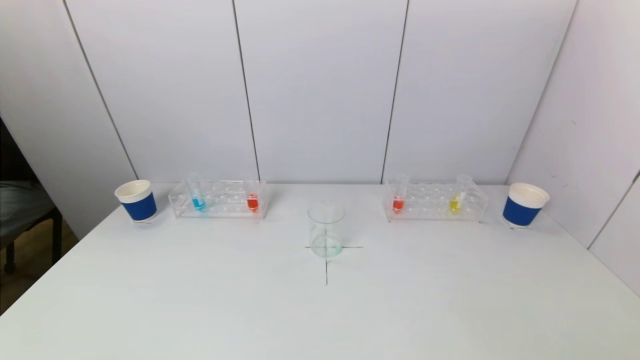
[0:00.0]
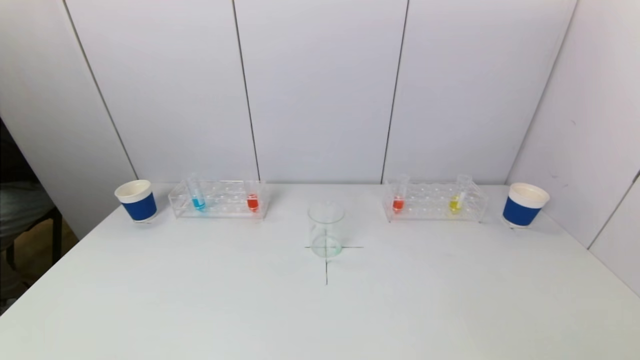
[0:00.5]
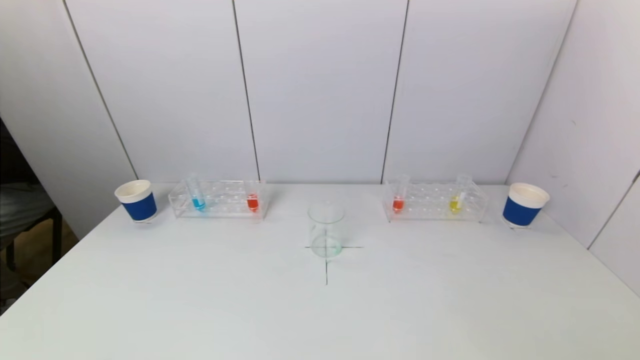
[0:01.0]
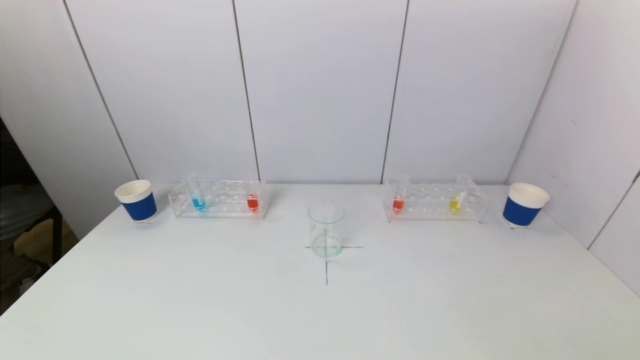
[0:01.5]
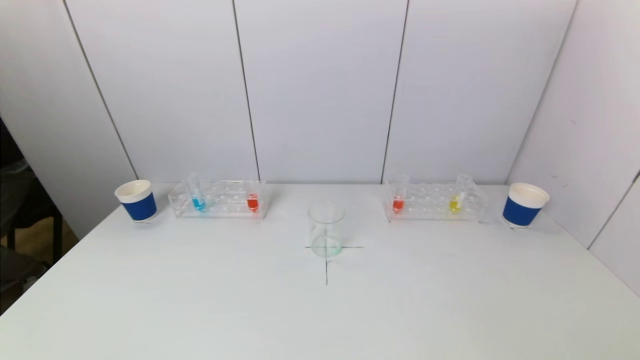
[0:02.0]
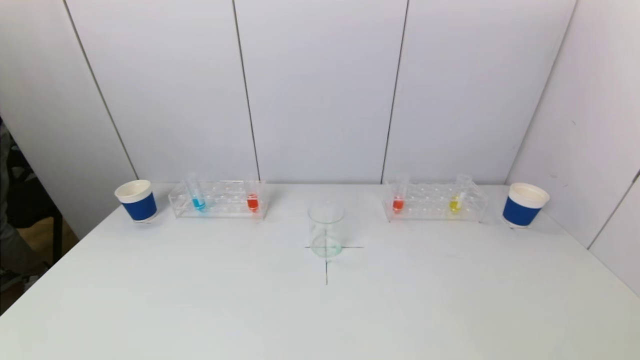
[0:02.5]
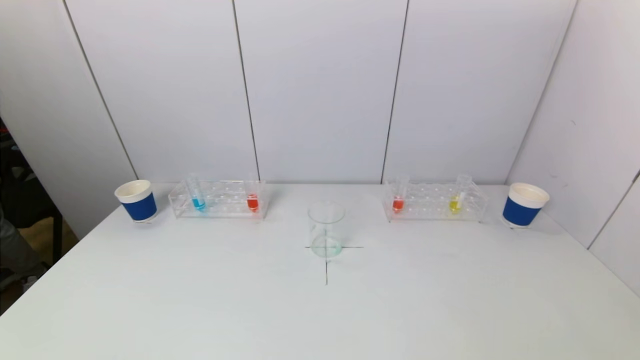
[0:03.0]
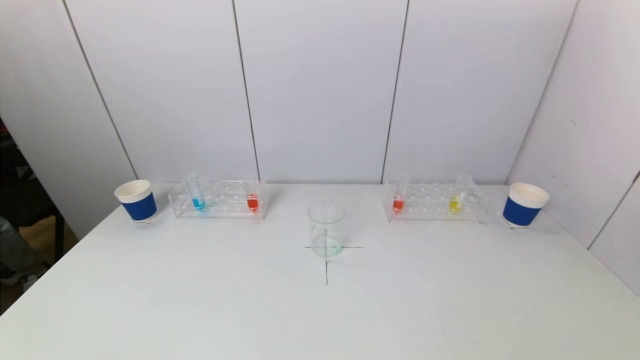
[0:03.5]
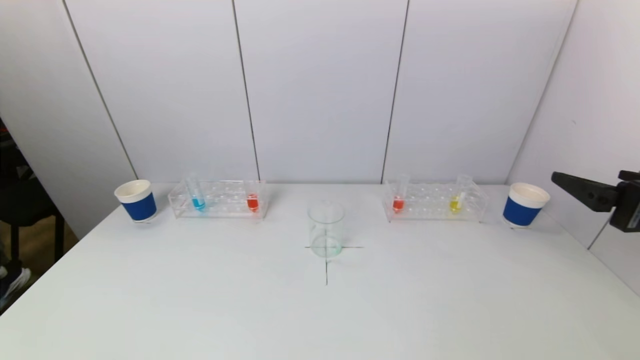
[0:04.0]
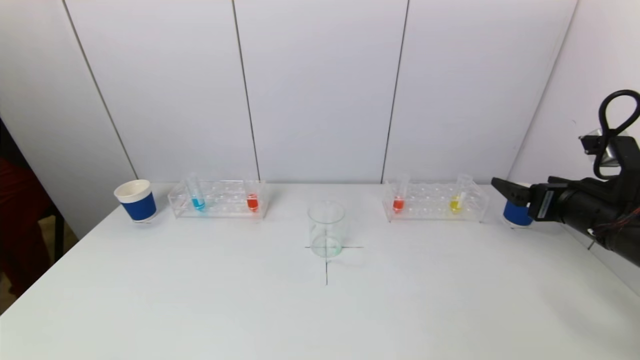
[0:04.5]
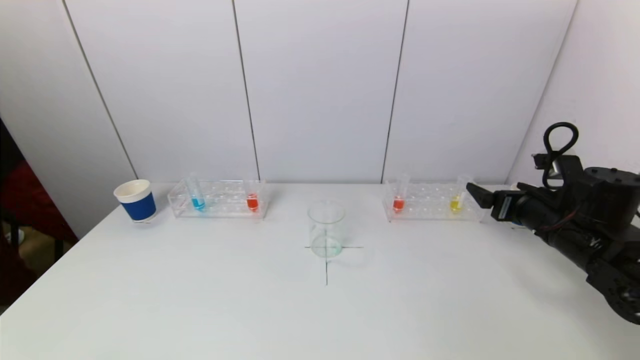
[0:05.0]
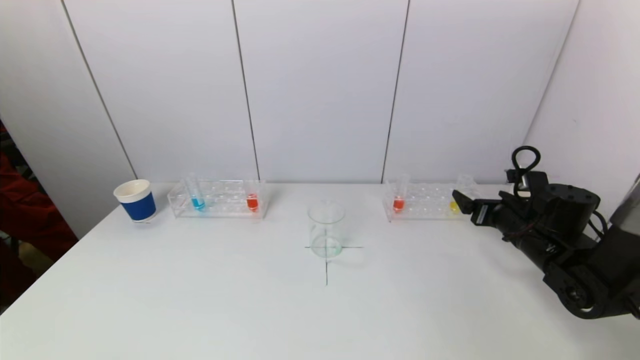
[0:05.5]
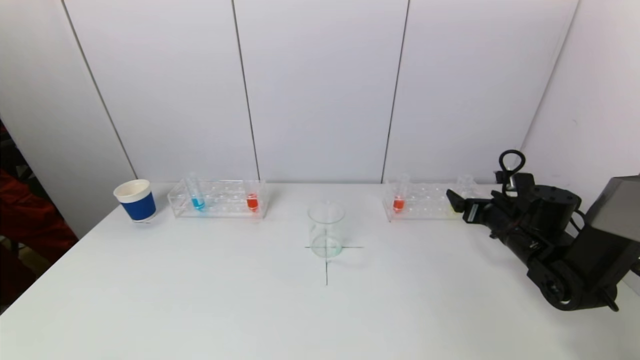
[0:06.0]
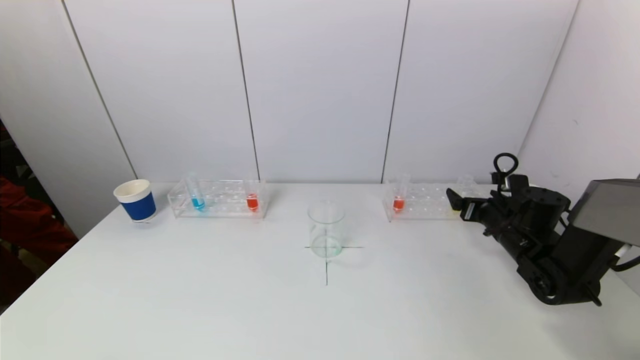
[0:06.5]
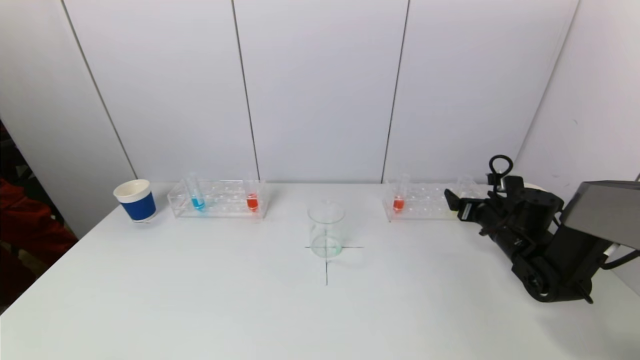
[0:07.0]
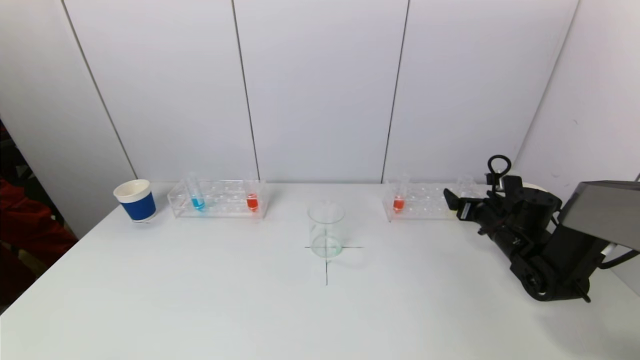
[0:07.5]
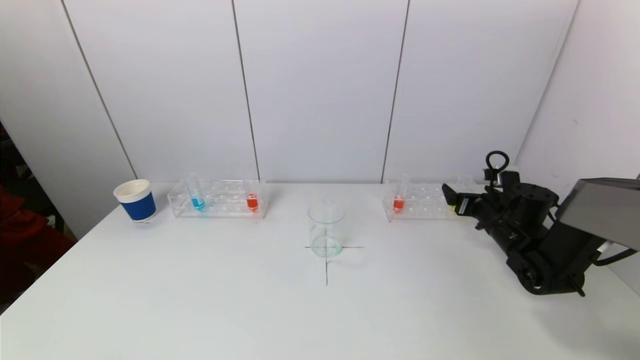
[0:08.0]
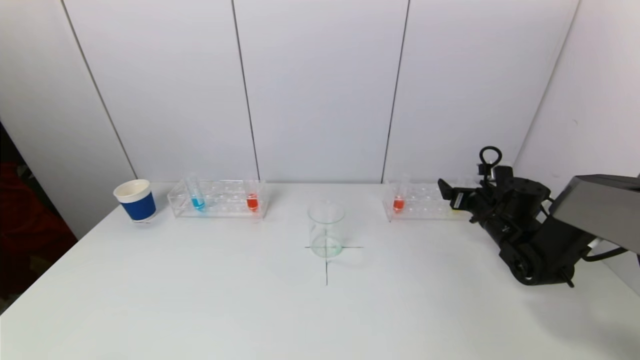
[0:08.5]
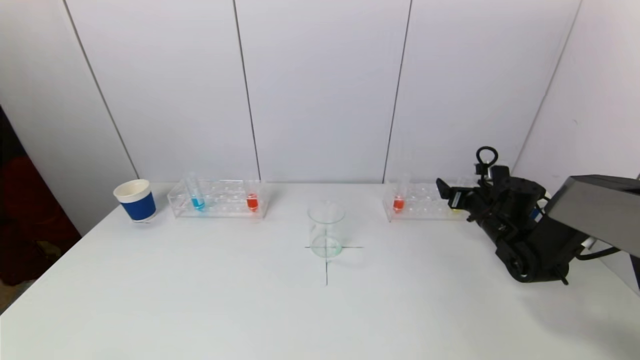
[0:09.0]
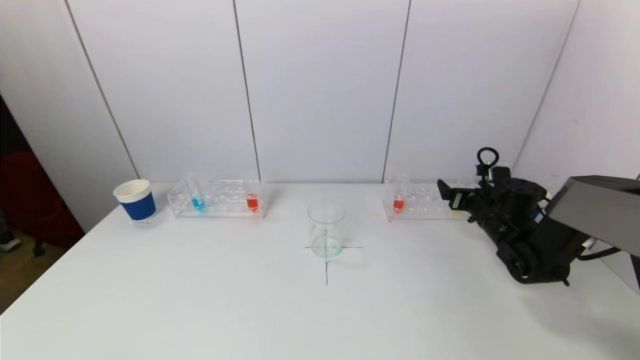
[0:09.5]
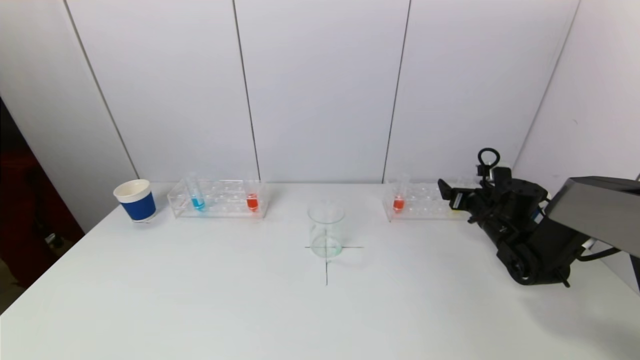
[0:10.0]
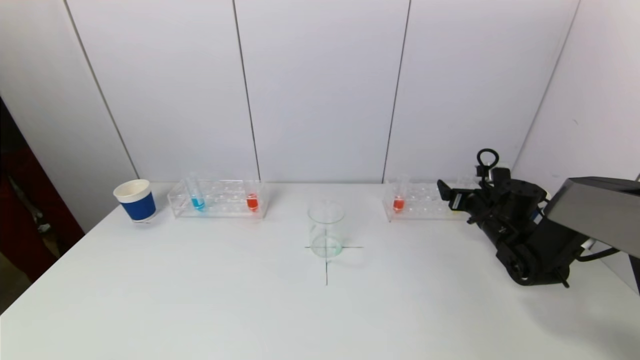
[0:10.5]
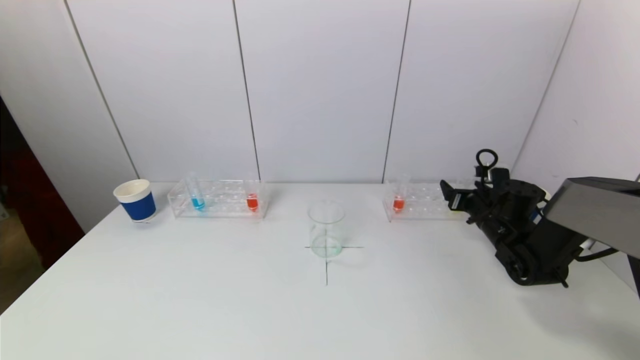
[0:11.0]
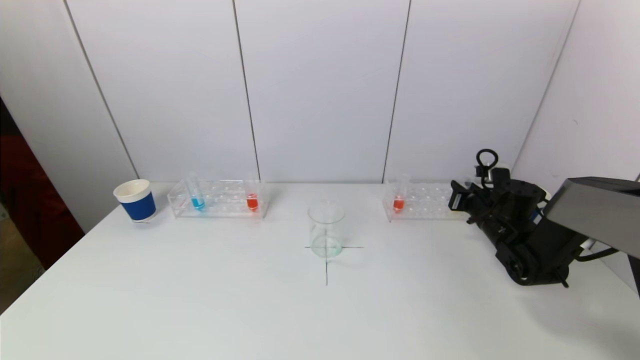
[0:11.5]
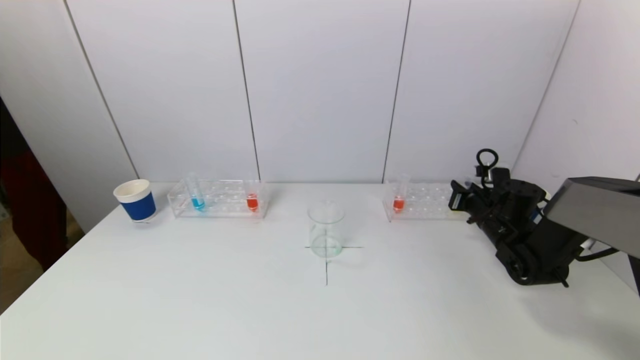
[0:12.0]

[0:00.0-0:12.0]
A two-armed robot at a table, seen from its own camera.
Task of the whole recording: pick up a test tube with pigment on left test tube rack and a test tube with pigment on right test tube rack by grippers and pour them into the beaker.
Step, 0:00.0 to 0:11.5: Grasp the yellow reagent with the right gripper.
0:02.0 to 0:04.0: The right gripper goes about 25 cm forward and upward.
0:04.0 to 0:06.0: The right gripper heads forward and downward, covering approximately 25 cm.
0:06.0 to 0:08.0: The grippers stay close to where they were, moving slightly.
0:08.0 to 0:10.0: There are only small adjustments of the grippers.
0:10.0 to 0:12.0: The right gripper closes up.

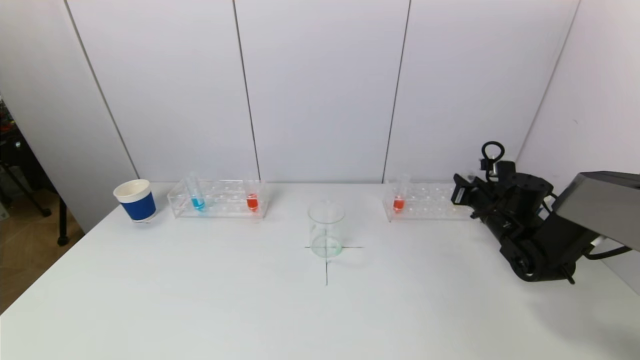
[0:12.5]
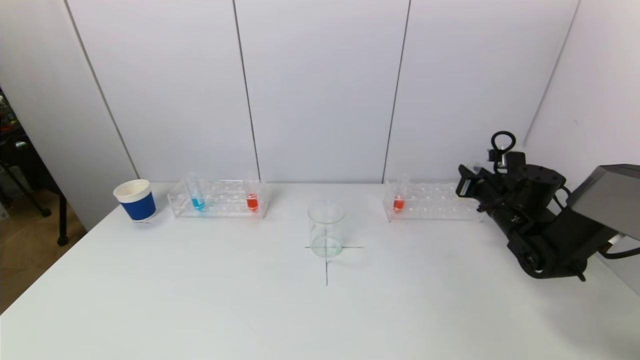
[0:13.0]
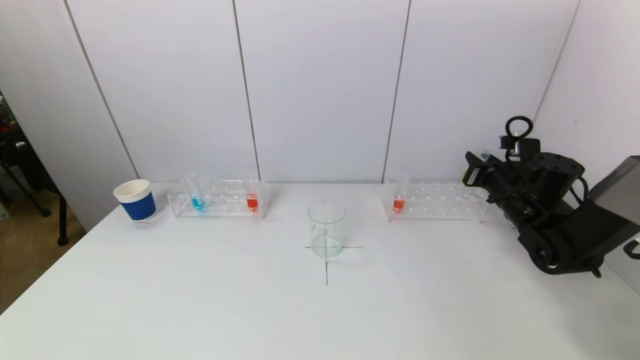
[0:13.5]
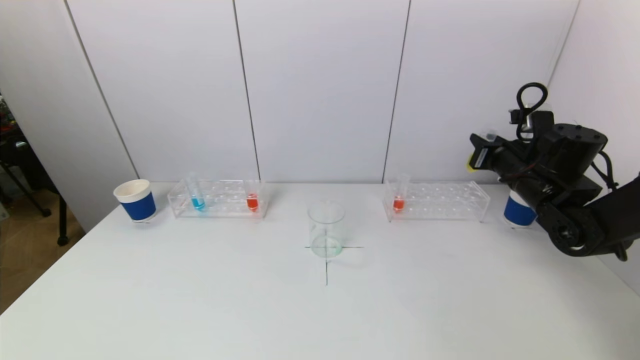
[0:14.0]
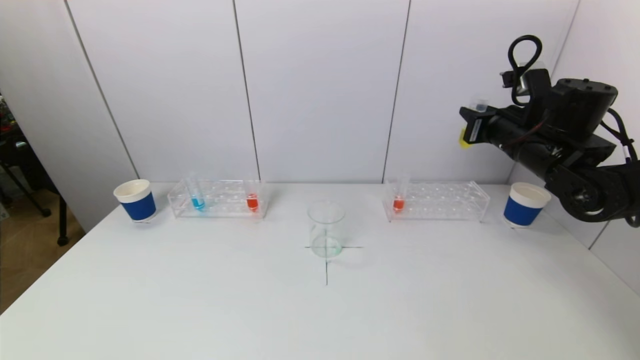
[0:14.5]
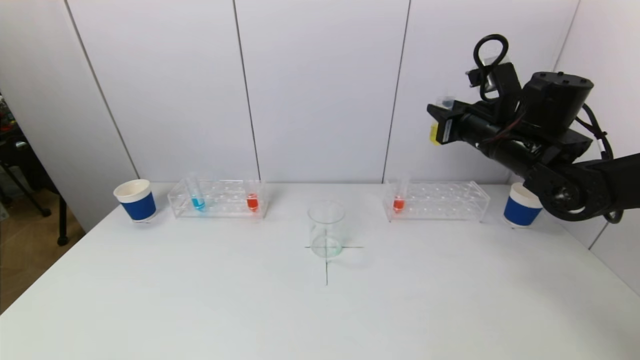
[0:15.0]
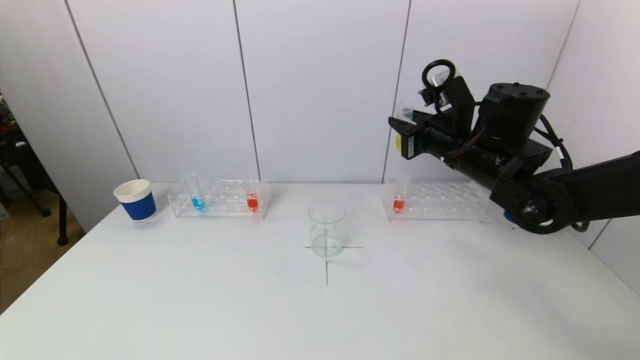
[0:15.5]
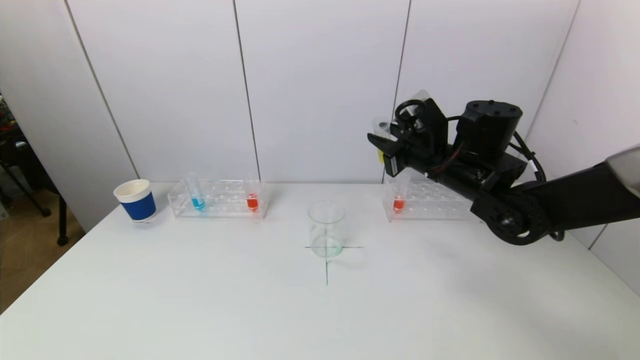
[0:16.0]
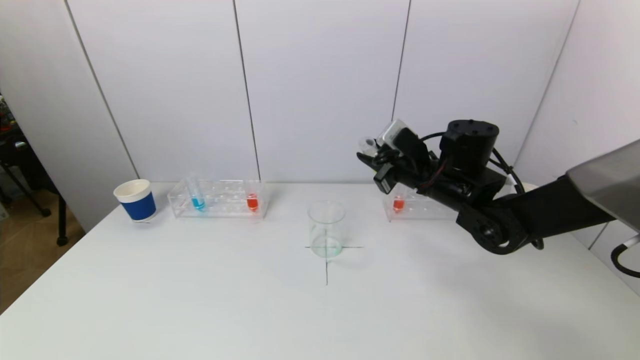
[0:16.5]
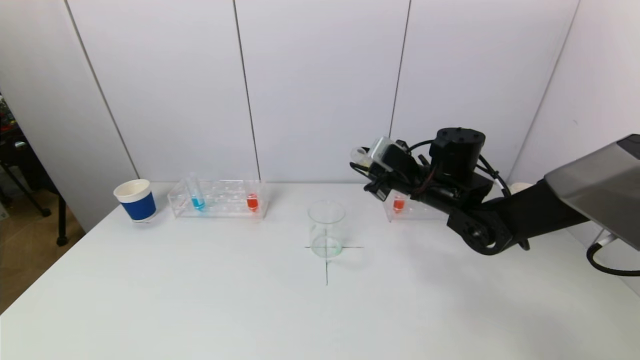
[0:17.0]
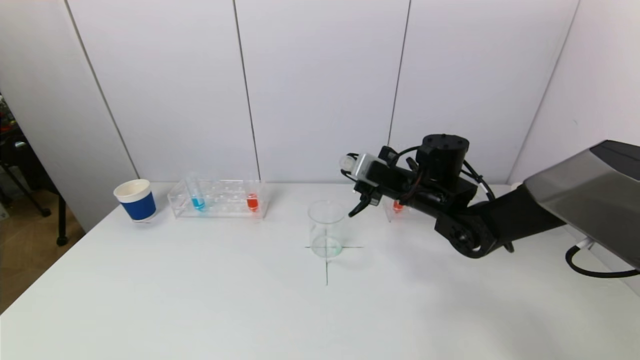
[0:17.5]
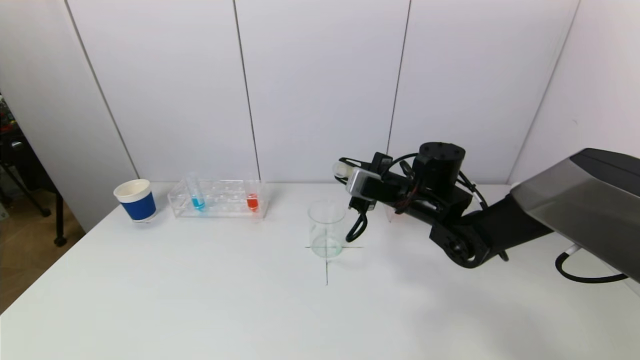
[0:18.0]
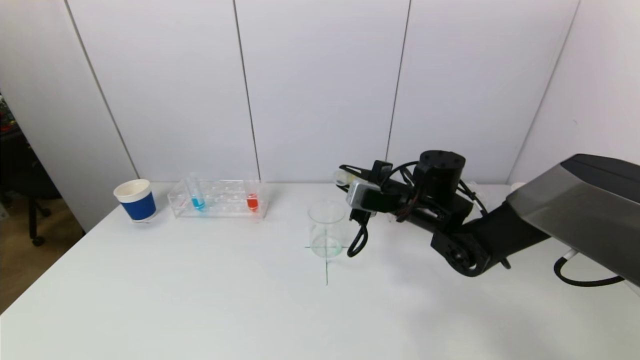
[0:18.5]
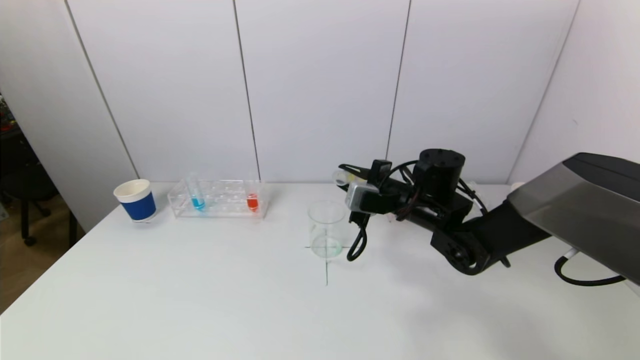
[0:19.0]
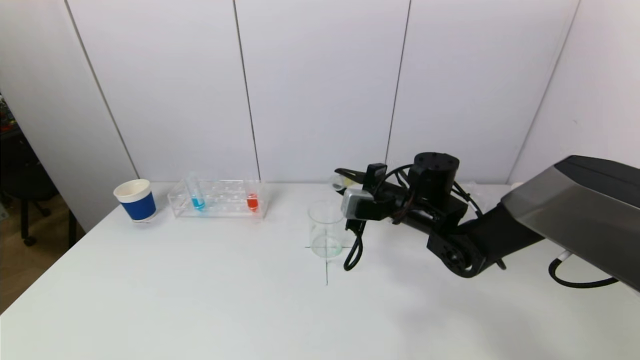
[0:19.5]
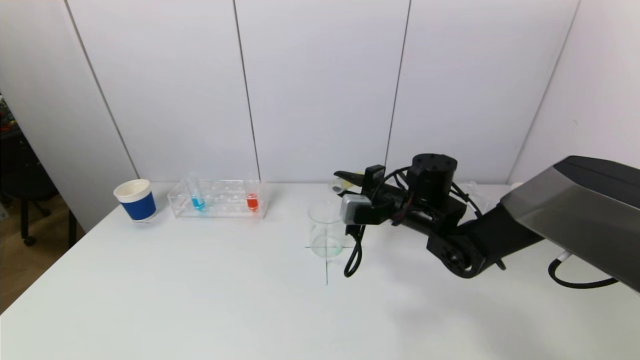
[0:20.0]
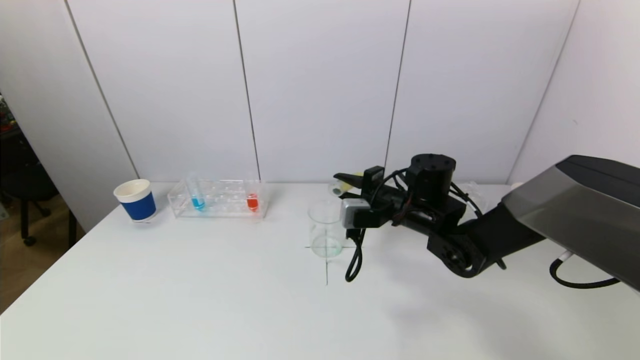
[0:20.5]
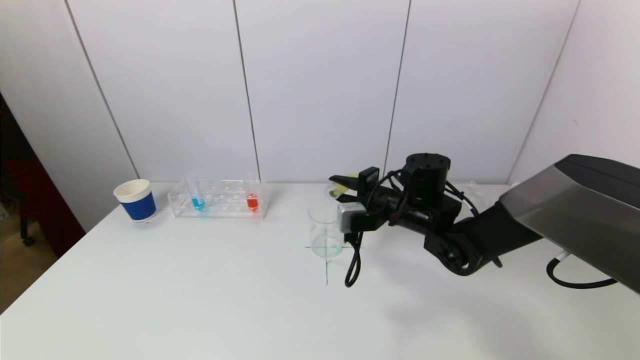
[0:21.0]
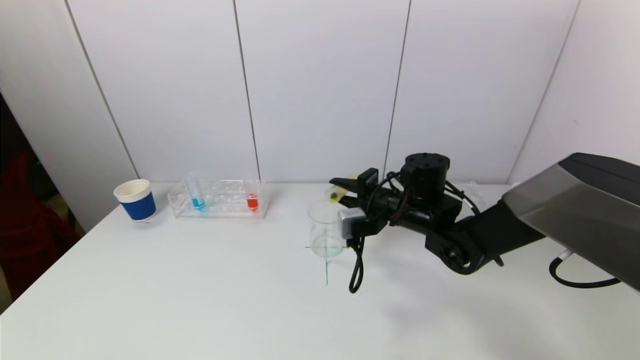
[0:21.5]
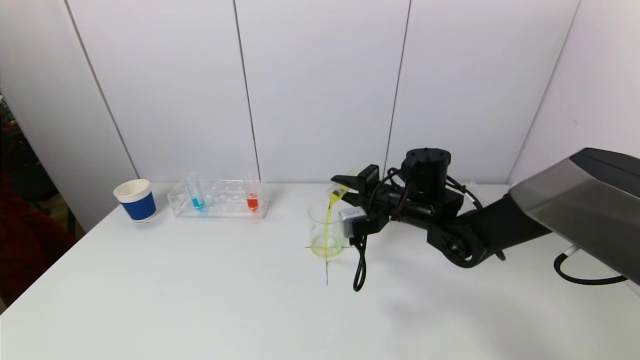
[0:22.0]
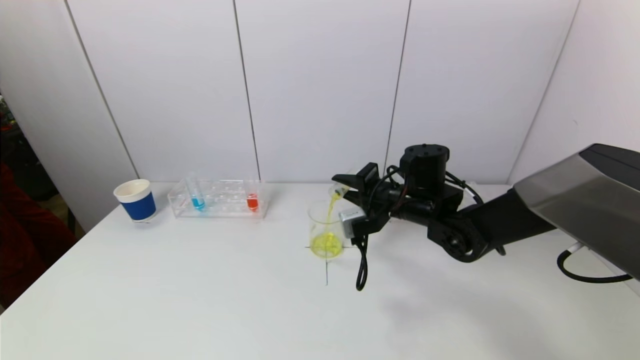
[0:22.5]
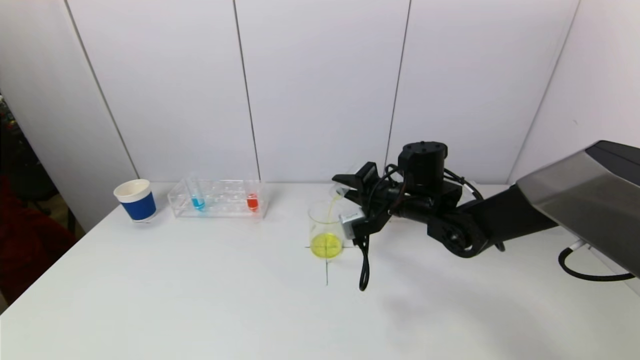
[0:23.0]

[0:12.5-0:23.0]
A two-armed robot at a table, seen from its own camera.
Task of the whole recording: pick up a test tube with pigment on left test tube rack and a test tube with pigment on right test tube rack by grippers and pour them into the beaker.
0:12.5 to 0:14.5: The right gripper travels upward by some 15 cm.
0:14.5 to 0:16.5: The right gripper shifts approximately 15 cm to the left and downward.
0:16.5 to 0:19.0: The right gripper changes place by roughly 5 cm.
0:19.0 to 0:21.0: The grippers make only small movements.
